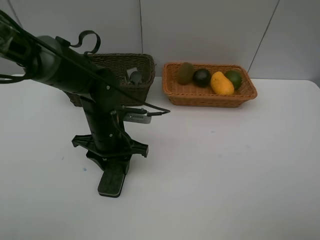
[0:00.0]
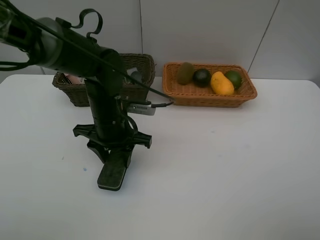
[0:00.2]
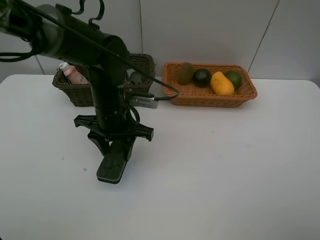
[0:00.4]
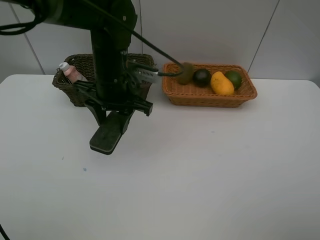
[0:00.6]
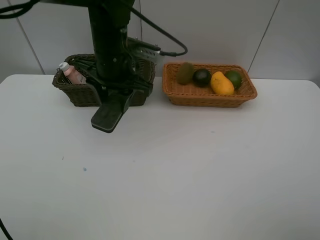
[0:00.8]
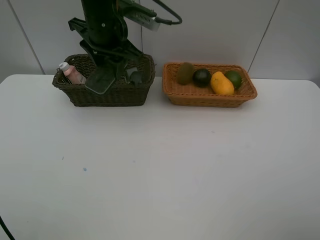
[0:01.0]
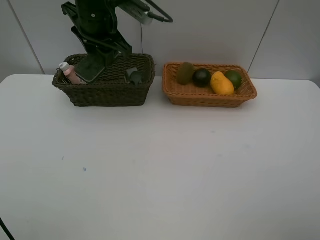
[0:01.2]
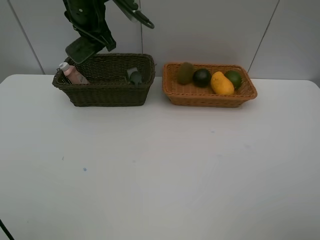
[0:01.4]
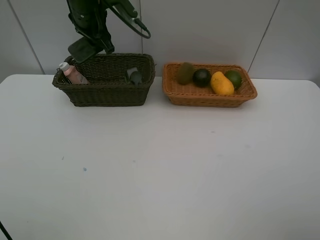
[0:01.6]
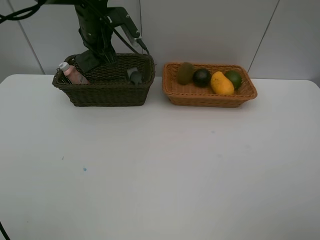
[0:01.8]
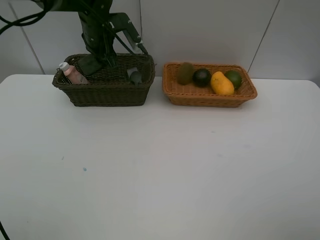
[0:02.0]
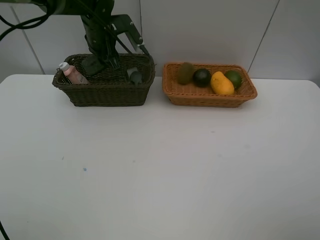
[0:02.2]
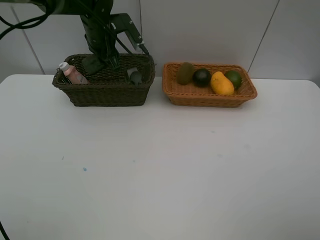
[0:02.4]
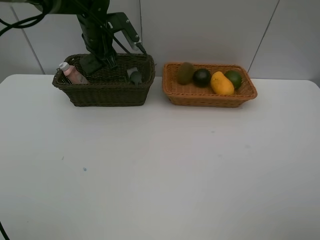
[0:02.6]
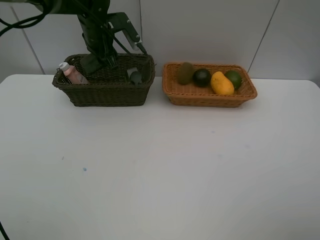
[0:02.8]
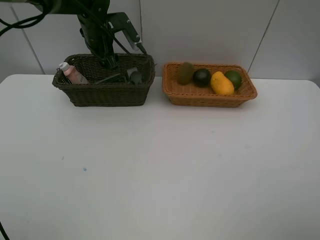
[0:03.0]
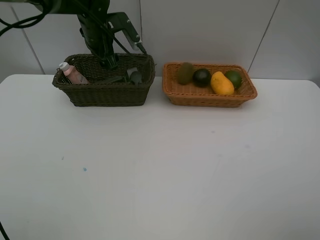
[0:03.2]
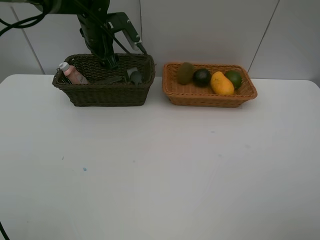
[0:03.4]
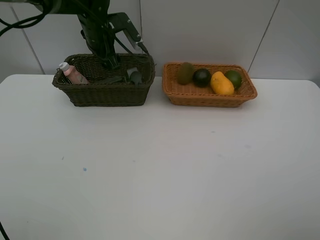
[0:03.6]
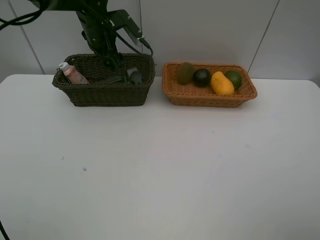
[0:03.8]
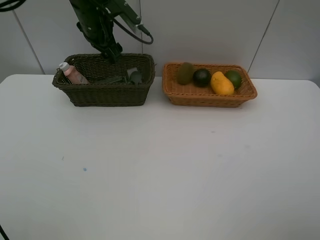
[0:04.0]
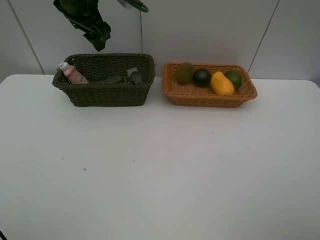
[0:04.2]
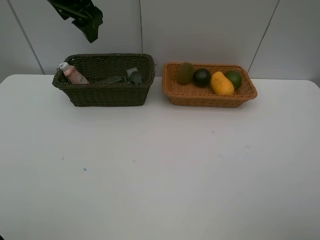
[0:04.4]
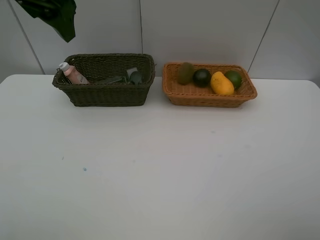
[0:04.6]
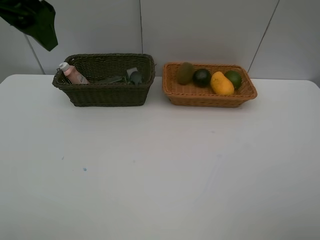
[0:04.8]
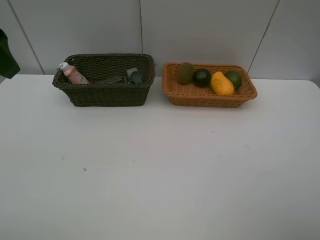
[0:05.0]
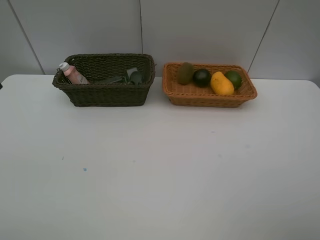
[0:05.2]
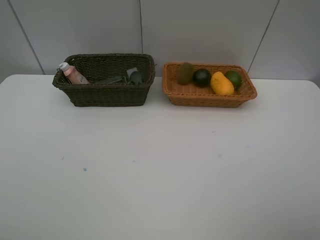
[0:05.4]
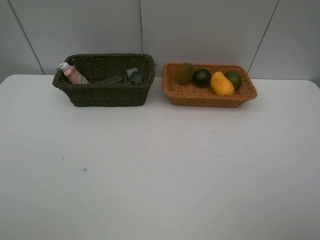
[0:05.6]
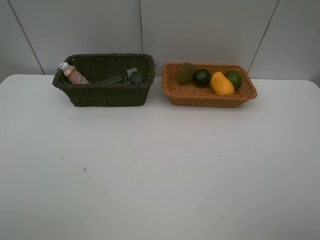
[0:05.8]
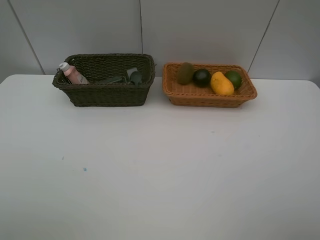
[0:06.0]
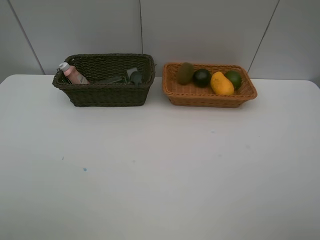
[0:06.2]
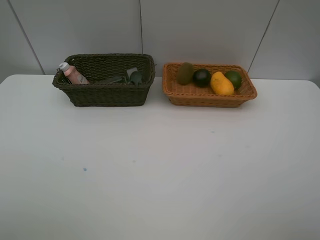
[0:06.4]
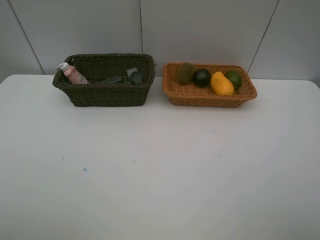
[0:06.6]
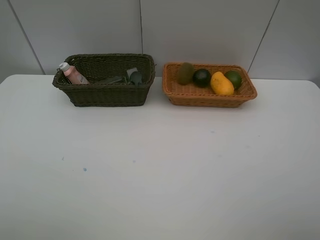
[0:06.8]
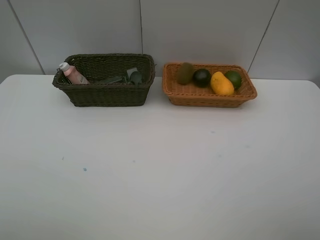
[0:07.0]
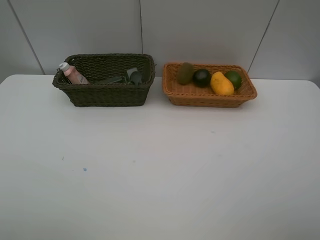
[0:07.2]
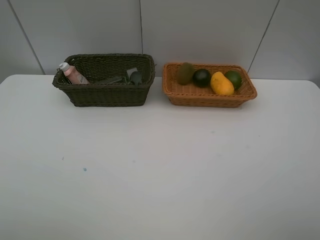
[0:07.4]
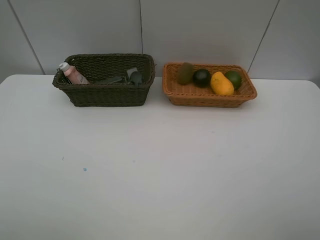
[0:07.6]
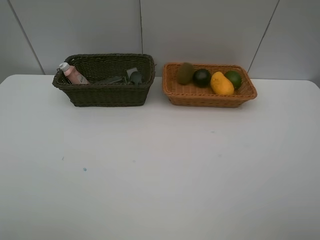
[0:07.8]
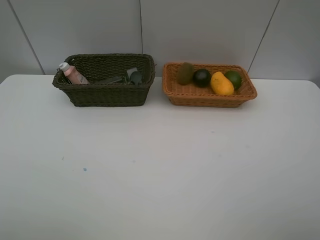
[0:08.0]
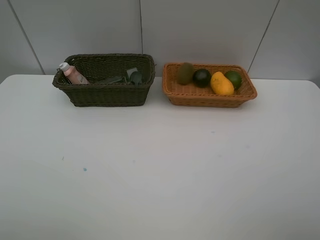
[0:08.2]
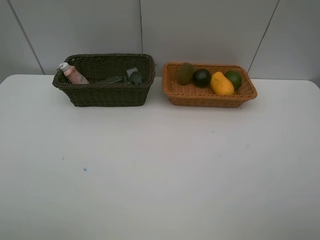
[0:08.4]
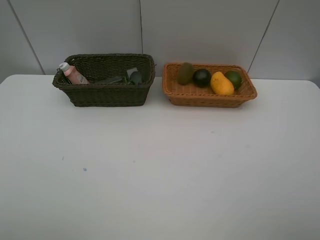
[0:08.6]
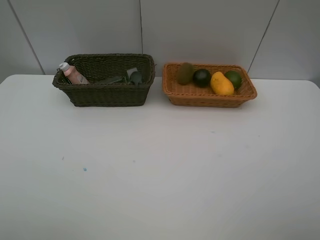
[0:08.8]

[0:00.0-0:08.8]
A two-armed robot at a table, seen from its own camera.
Task of the whole recording: Place multiple objects separately in different baskets.
Step, 0:00.4 to 0:03.6: Place the blackboard eraser in the dark basket with left gripper.
0:00.0 to 0:01.4: The left gripper goes approximately 25 cm upward and forward.
0:01.4 to 0:03.0: The left gripper heads downward, covering roughly 5 cm, and opens.
0:03.0 to 0:04.4: The left gripper travels upward and backward by about 20 cm.
0:04.4 to 0:05.8: The left gripper shifts about 30 cm backward.
0:07.4 to 0:08.8: Both grippers stay about where they are.

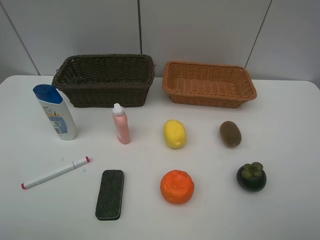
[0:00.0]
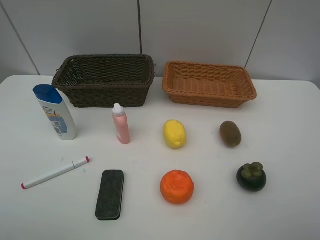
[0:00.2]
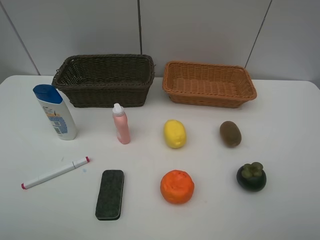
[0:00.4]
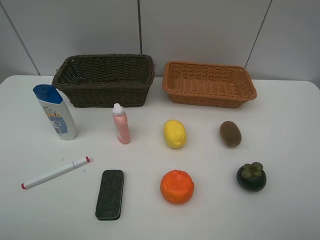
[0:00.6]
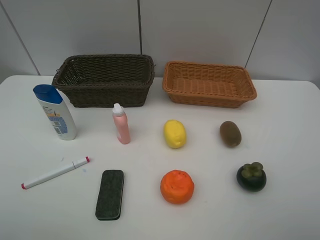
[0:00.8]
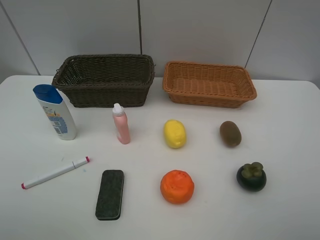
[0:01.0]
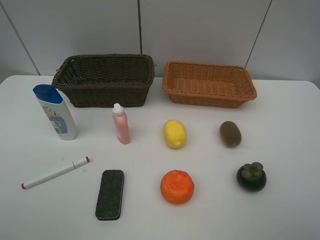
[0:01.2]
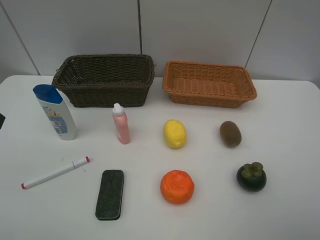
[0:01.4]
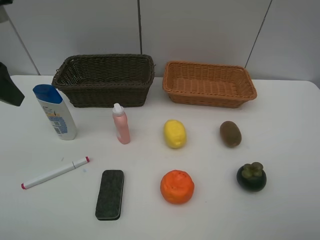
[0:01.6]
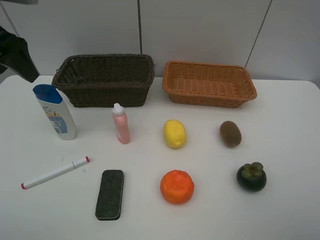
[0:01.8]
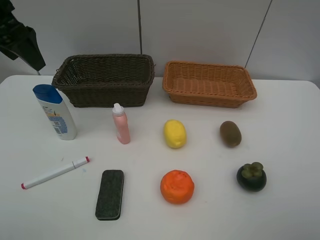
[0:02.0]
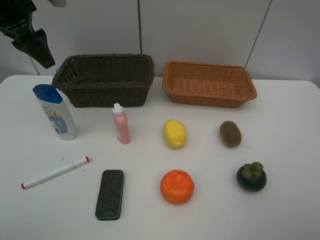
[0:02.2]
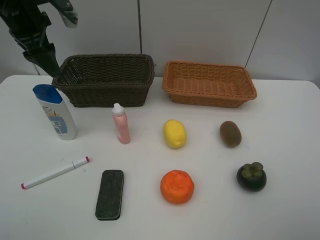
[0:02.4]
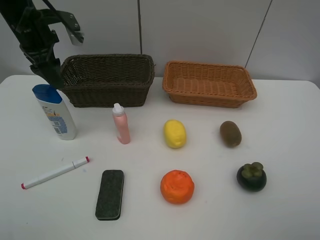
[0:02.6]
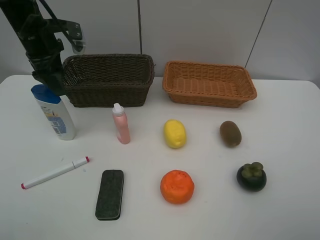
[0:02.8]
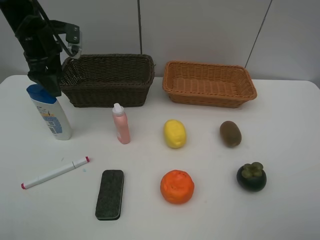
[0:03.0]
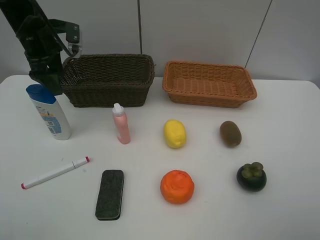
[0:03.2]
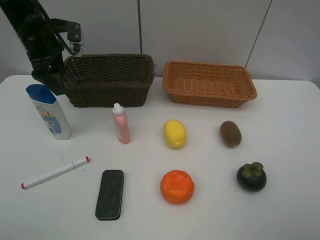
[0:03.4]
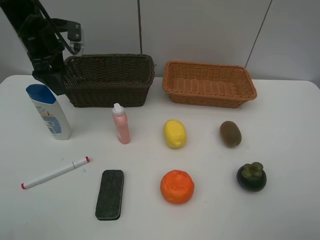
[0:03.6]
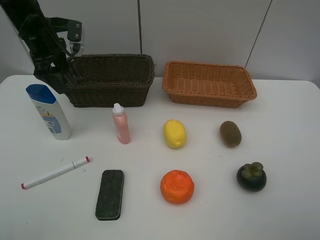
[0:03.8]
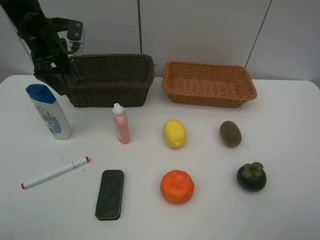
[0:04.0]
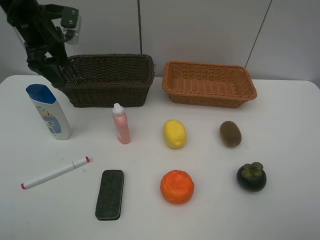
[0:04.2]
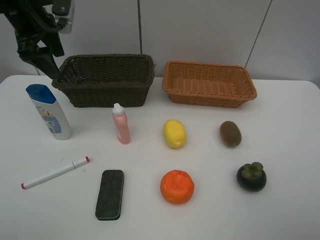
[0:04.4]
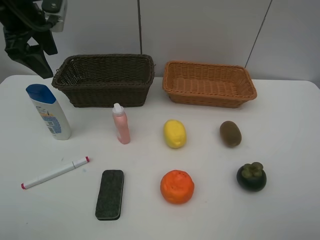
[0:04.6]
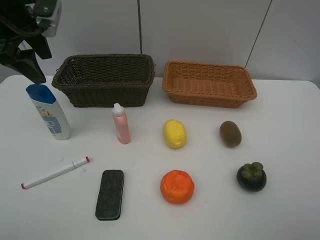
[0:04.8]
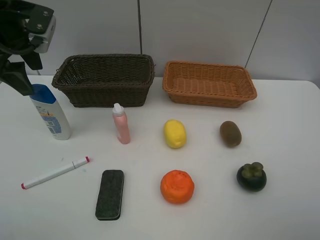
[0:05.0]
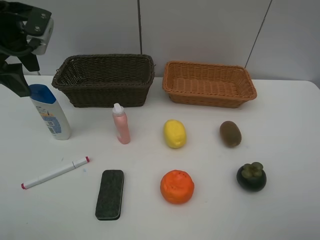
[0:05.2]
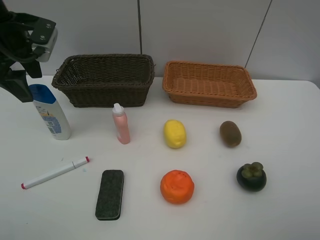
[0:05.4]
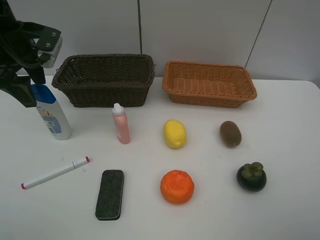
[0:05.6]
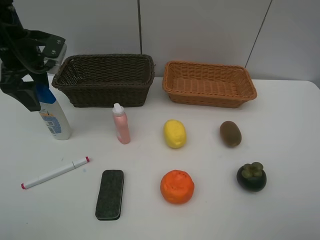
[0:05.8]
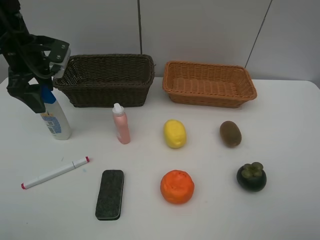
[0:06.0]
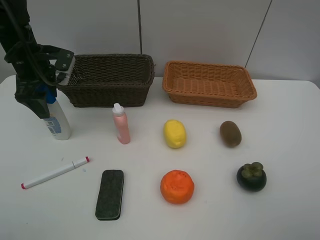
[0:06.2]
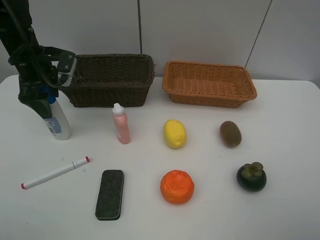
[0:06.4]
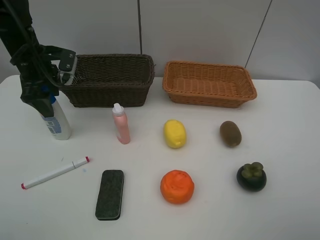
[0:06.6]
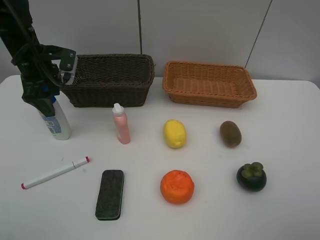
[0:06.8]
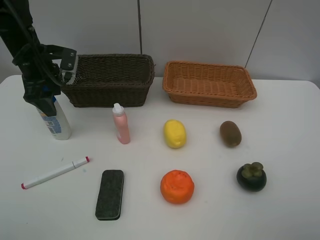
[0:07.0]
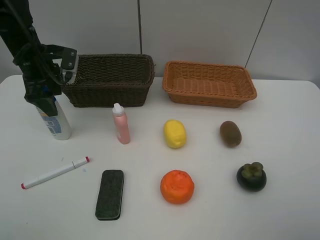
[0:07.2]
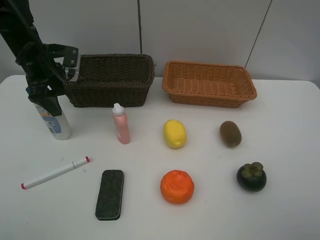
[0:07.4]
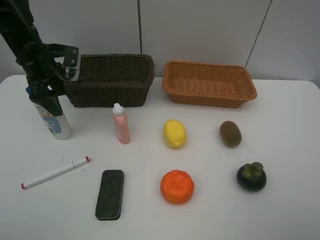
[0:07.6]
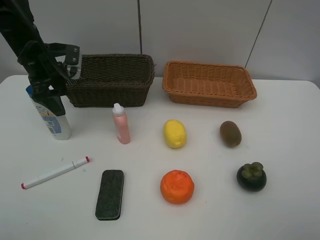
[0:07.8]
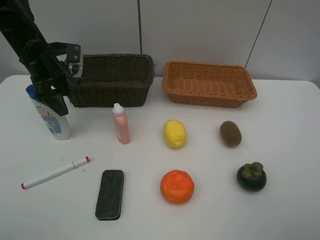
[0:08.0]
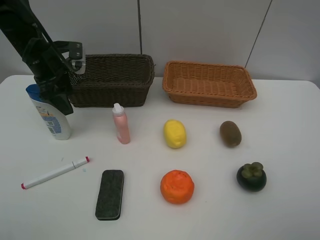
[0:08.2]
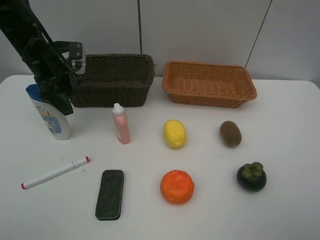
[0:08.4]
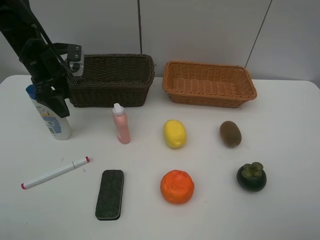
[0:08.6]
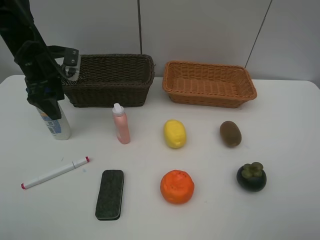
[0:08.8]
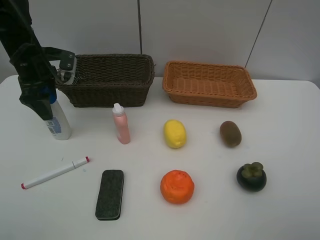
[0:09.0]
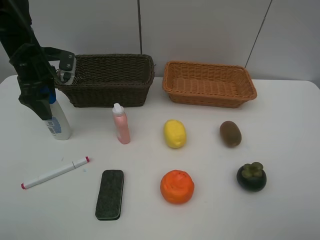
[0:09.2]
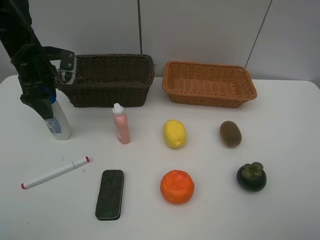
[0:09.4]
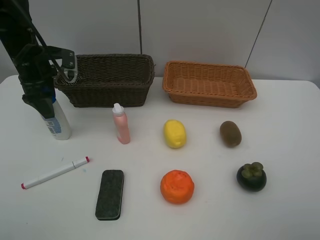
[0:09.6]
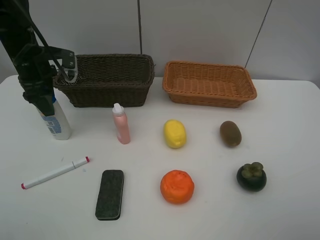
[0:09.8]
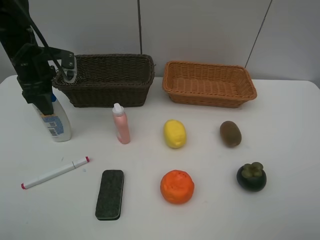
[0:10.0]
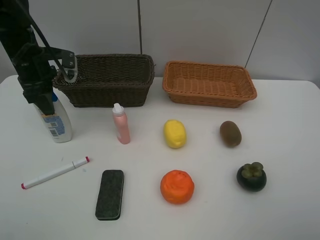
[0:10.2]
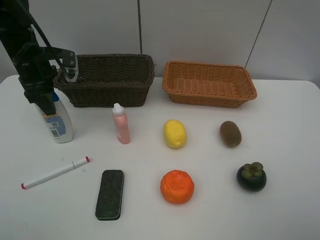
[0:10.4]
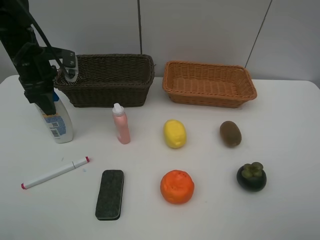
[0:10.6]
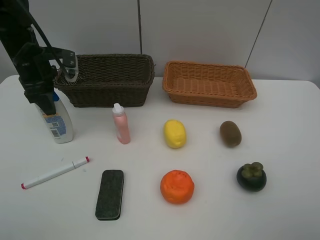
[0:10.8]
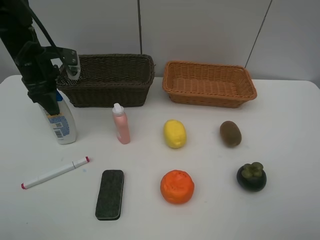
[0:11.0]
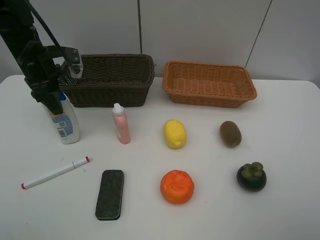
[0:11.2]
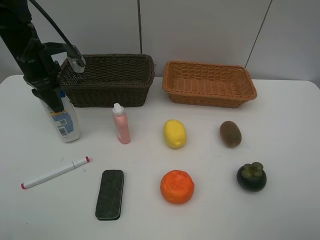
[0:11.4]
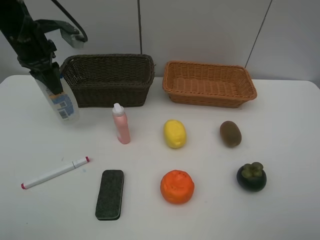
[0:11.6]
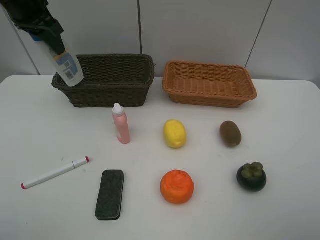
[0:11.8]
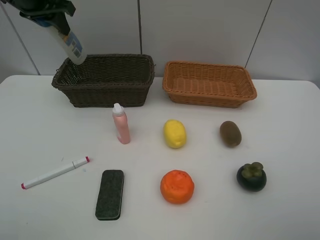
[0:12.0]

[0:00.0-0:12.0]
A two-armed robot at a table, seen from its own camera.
Task of the whole recording: Place multiple objects separately in different baskets.
Step, 0:00.0 to 0:11.6: Pick up the shampoo with left gripper.
0:00.0 to 0:01.6: The left gripper heads forward, covering about 25 cm.
0:01.6 to 0:03.0: The left gripper travels forward by about 20 cm.
0:03.0 to 0:04.4: The left gripper travels upward by roughly 5 cm.
0:04.4 to 0:06.0: The left gripper is displaced downward by about 5 cm.
0:06.0 to 0:09.0: The grippers move only a little.
0:09.0 to 0:10.4: The left gripper closes.
0:10.4 to 0:12.0: The left gripper shifts about 15 cm upward and forward.

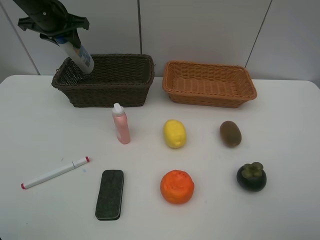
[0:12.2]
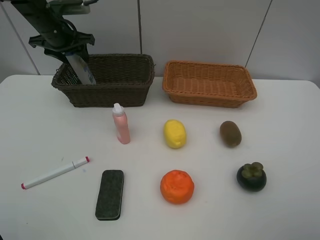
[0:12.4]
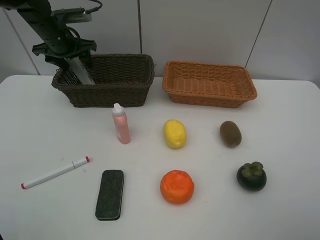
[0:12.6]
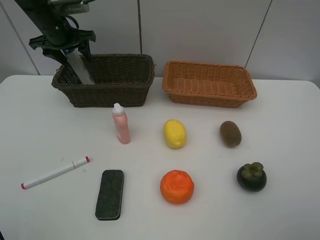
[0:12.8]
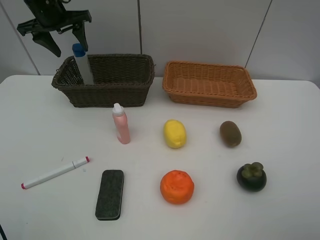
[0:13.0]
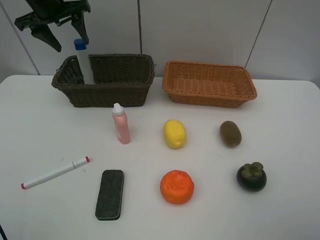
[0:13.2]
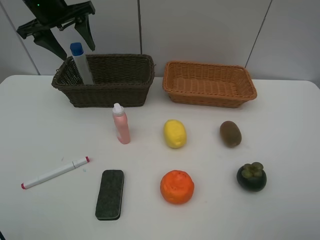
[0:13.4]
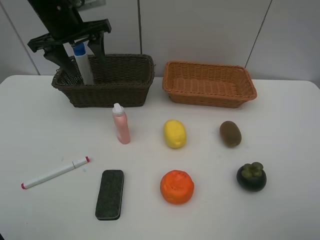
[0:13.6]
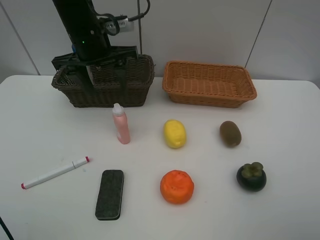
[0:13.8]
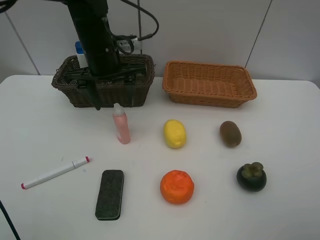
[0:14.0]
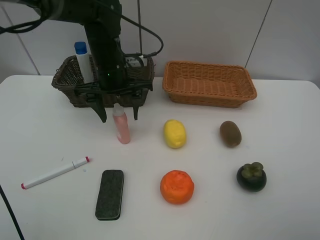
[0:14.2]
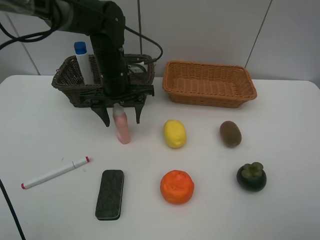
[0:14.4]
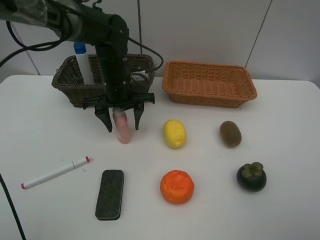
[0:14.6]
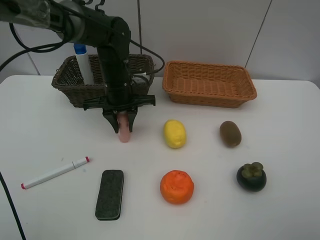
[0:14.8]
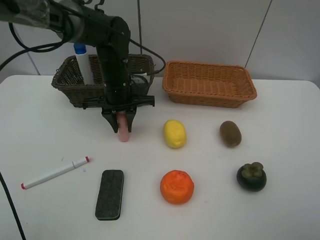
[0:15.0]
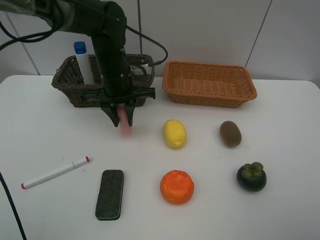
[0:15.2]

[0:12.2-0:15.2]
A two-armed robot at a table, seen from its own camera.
Task of the whole recording: Place multiple objects separately in different baskets.
Step, 0:12.2 to 0:13.0: Place the shampoo in the dark basket with left gripper.
Step, 0:13.2 to 0:15.2: Pick up the laundry detergent with left gripper.
0:12.2 to 0:13.8: The left gripper is displaced to the right and backward by approximately 15 cm, and opens.
0:13.8 to 0:15.2: The left gripper is displaced downward by approximately 5 cm, and closes.
